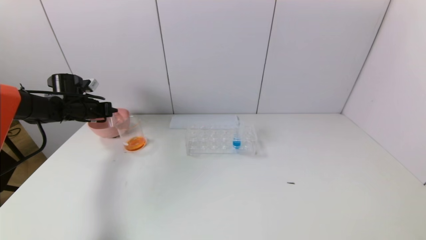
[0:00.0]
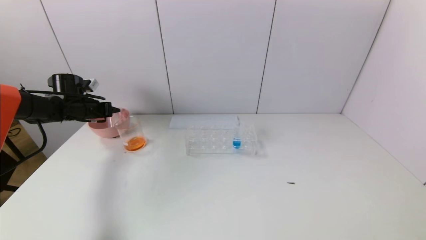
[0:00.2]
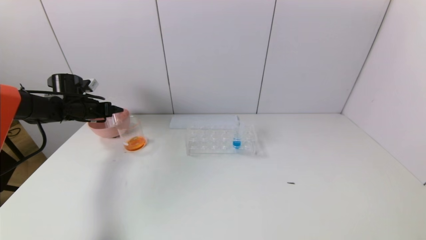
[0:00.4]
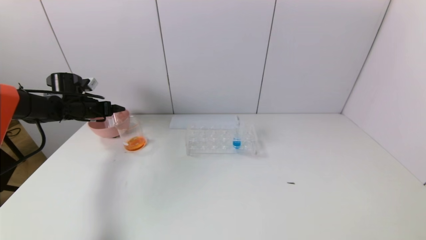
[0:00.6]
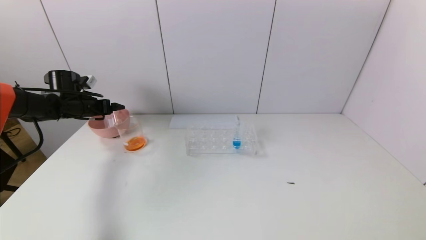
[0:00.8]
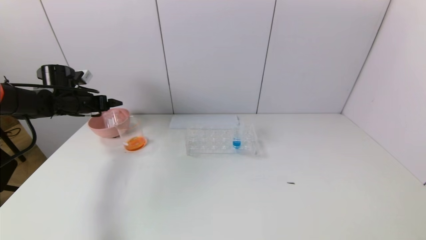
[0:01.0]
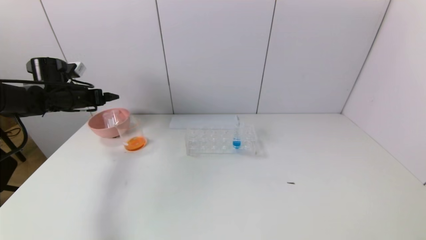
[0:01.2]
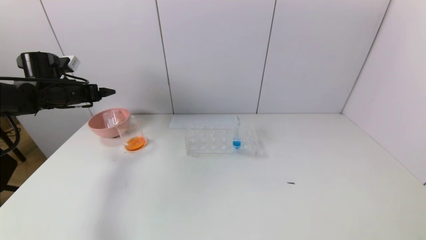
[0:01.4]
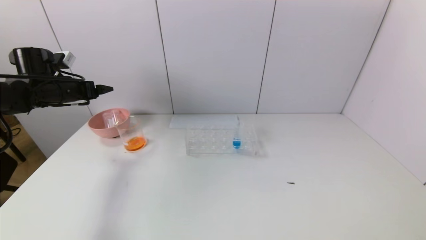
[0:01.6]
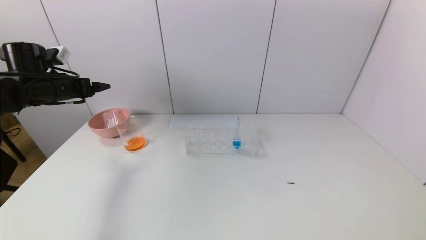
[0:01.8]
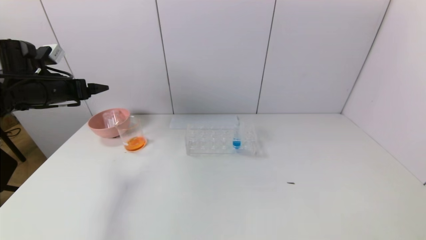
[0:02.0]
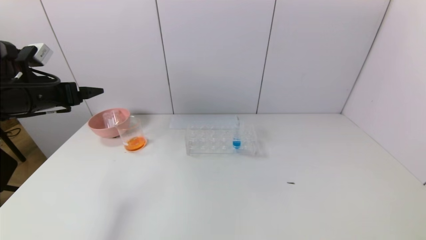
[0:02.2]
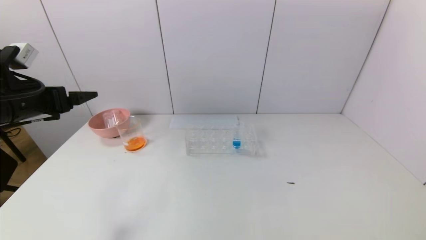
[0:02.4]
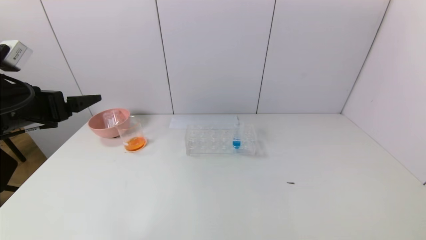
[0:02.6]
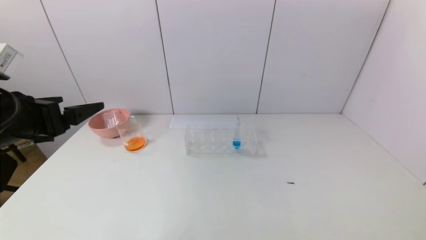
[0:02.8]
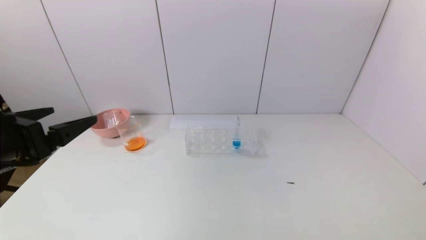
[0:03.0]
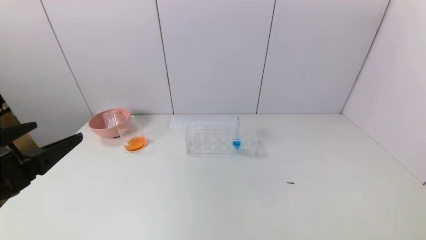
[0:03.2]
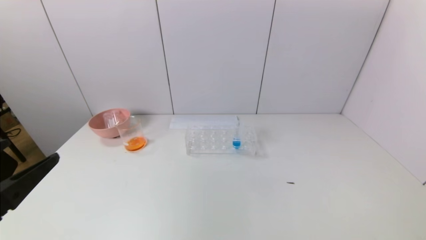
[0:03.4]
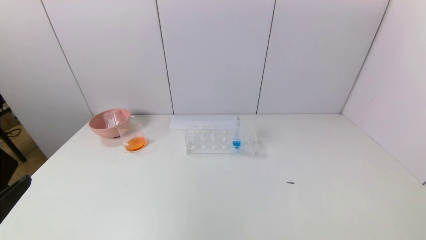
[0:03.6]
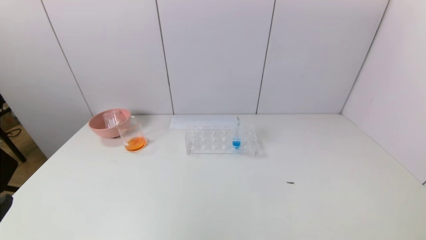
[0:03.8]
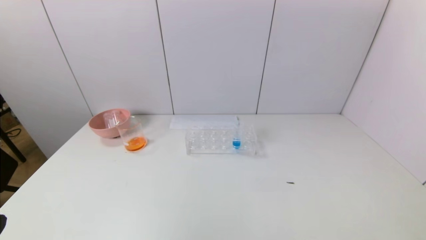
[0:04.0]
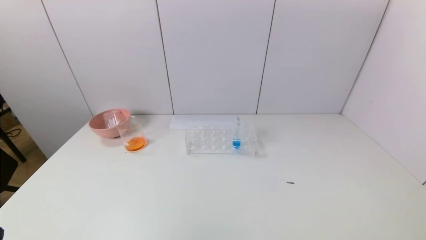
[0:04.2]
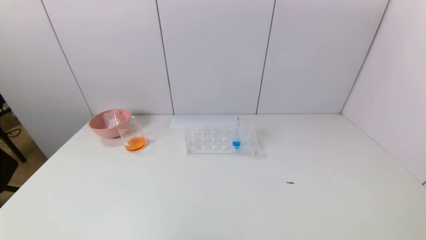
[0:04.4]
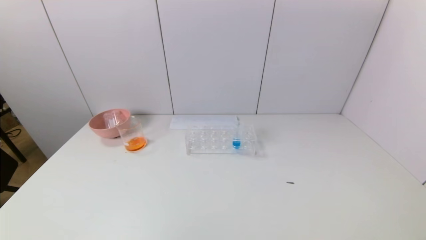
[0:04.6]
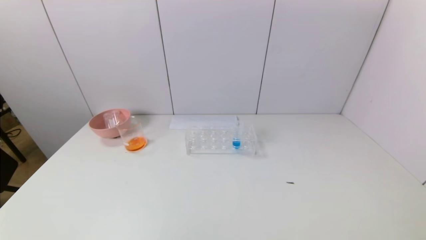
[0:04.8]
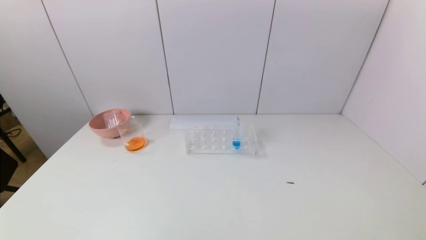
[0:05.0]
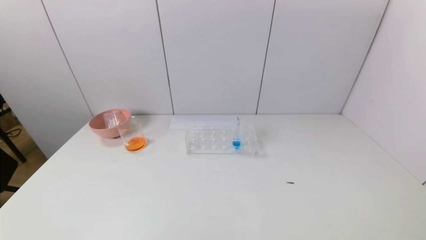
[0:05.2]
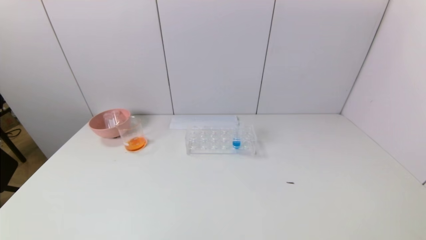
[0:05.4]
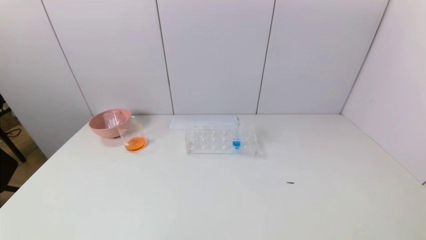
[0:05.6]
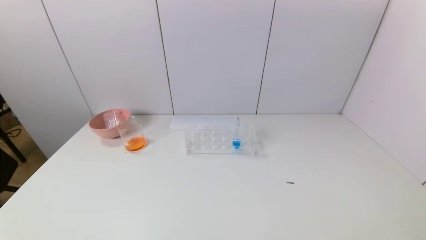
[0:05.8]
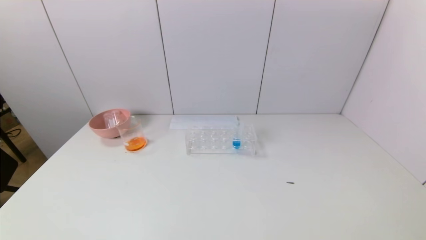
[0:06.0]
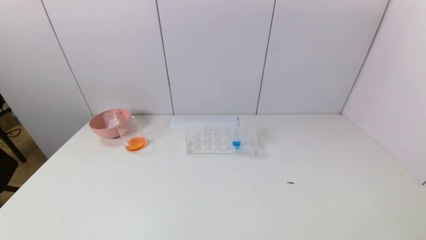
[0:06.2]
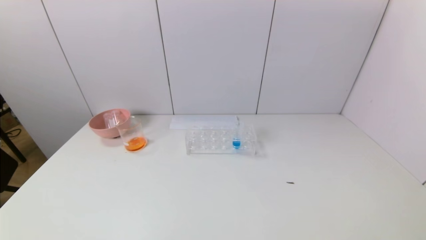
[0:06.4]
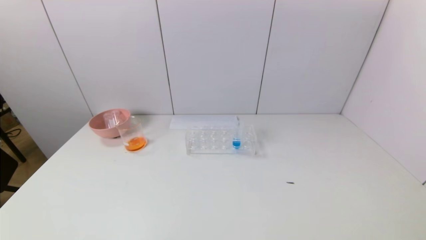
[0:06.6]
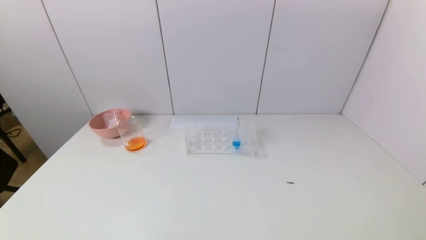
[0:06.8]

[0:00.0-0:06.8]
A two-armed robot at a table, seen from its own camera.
Task of the whole recording: pick up the test tube with yellow pigment and the test tube with red pigment by grippers and pour them into the beaker.
0:00.0 to 0:01.4: The left gripper heads upward, covering some 5 cm, and opens its fingers.
0:01.4 to 0:02.8: The left gripper travels backward and to the right by some 25 cm.
0:02.8 to 0:04.0: The left gripper moves backward and downward, approximately 20 cm.

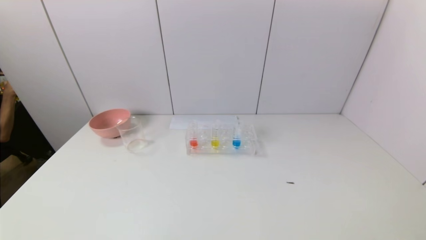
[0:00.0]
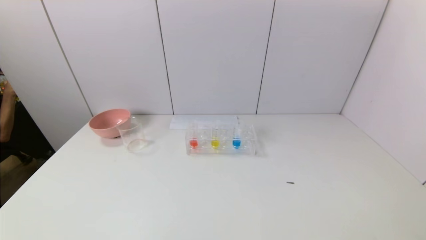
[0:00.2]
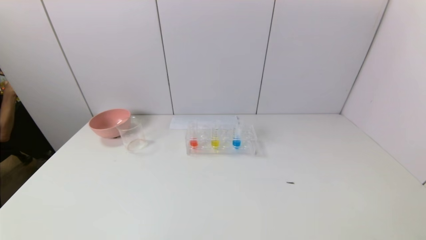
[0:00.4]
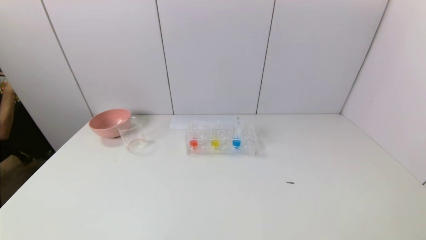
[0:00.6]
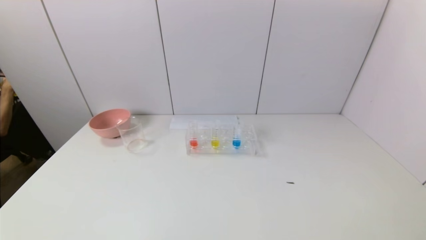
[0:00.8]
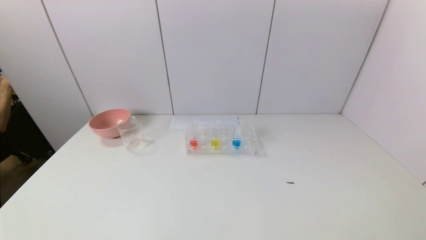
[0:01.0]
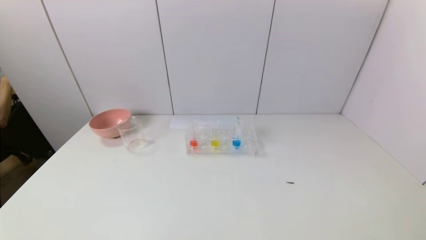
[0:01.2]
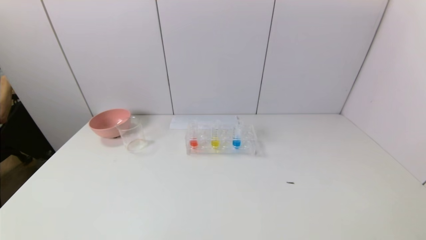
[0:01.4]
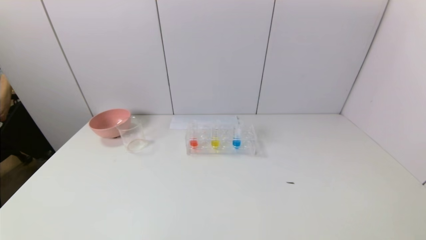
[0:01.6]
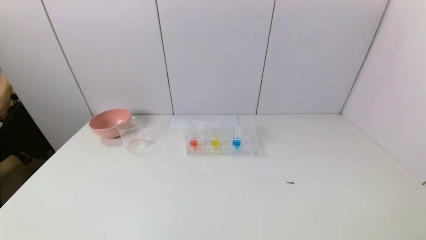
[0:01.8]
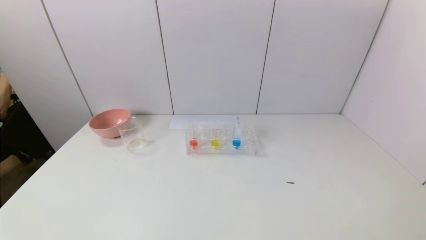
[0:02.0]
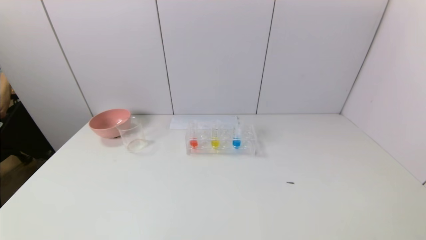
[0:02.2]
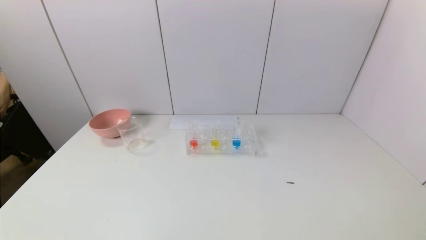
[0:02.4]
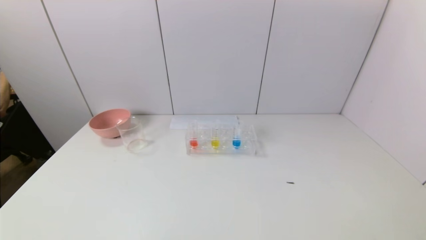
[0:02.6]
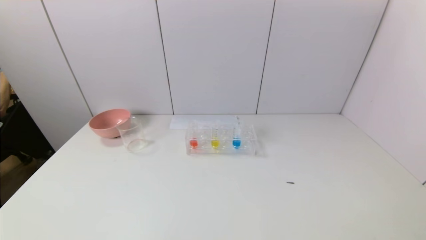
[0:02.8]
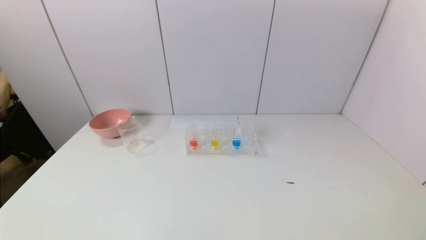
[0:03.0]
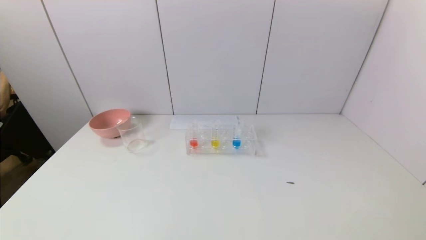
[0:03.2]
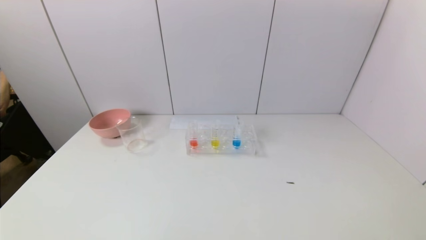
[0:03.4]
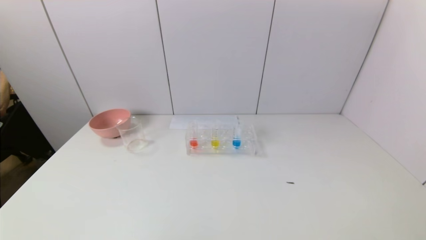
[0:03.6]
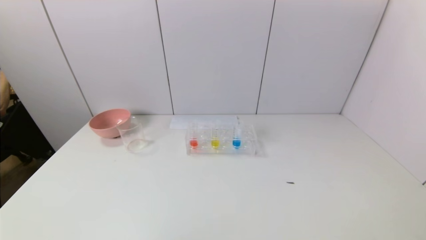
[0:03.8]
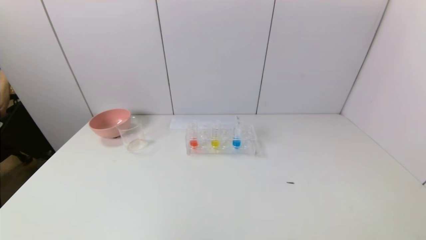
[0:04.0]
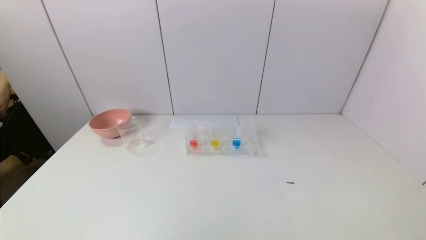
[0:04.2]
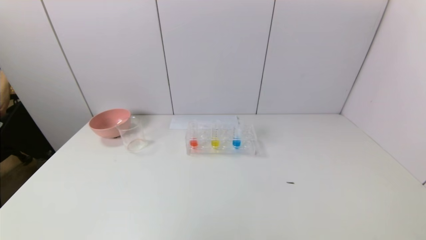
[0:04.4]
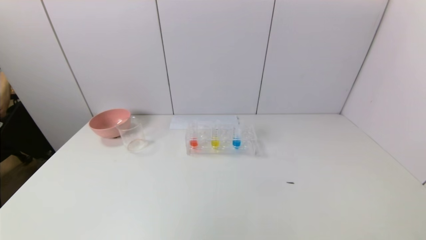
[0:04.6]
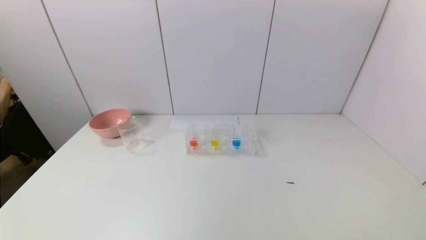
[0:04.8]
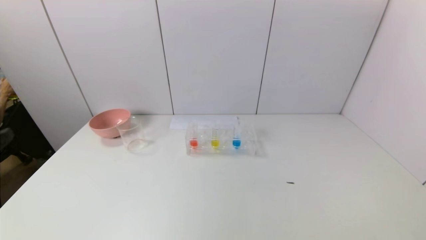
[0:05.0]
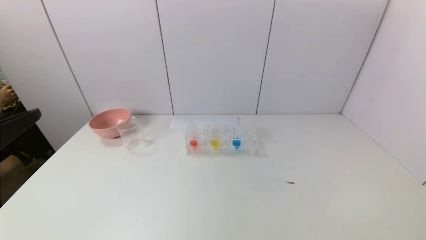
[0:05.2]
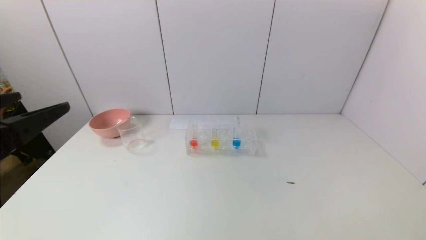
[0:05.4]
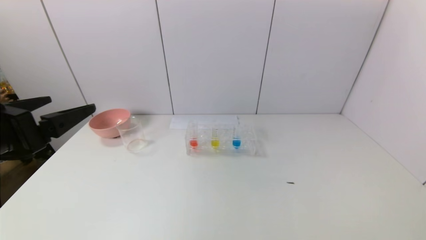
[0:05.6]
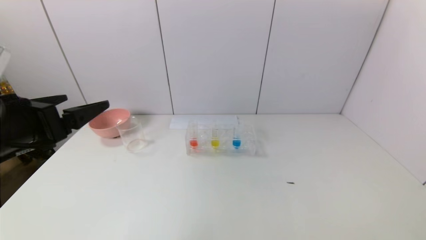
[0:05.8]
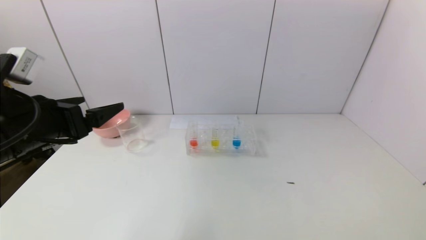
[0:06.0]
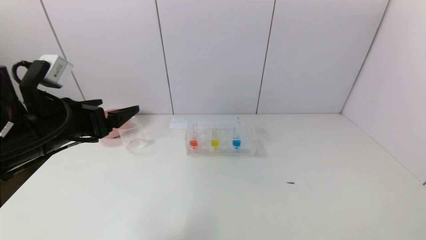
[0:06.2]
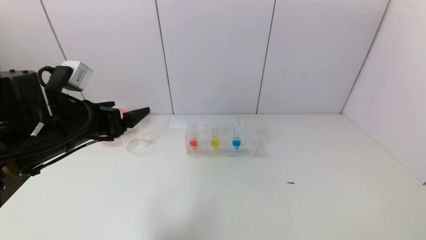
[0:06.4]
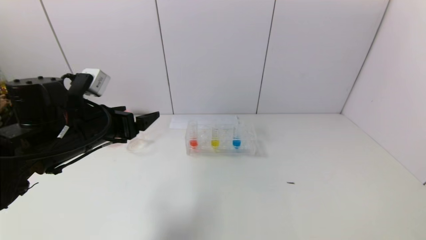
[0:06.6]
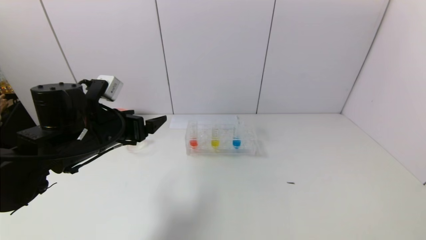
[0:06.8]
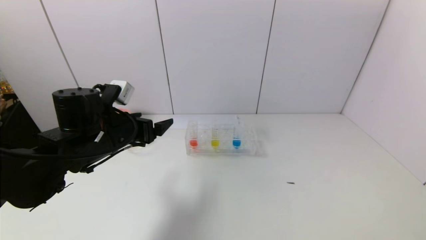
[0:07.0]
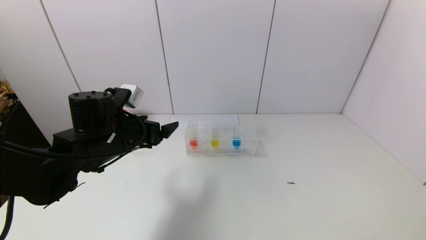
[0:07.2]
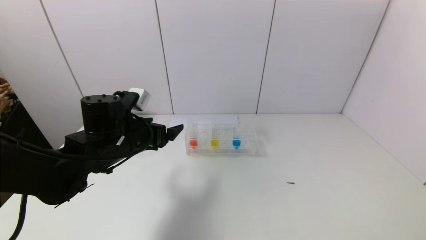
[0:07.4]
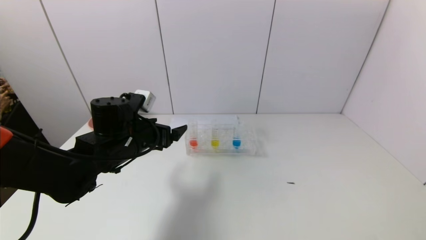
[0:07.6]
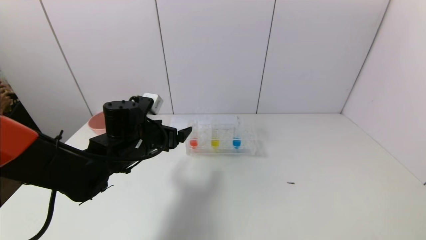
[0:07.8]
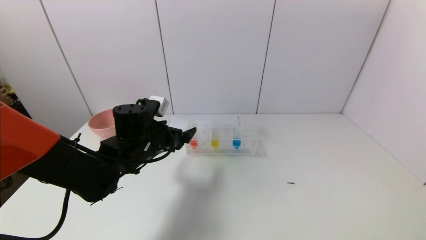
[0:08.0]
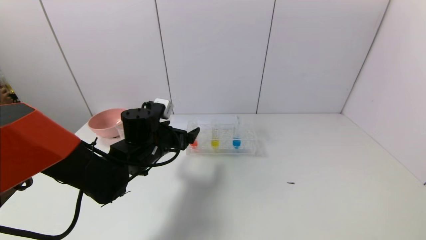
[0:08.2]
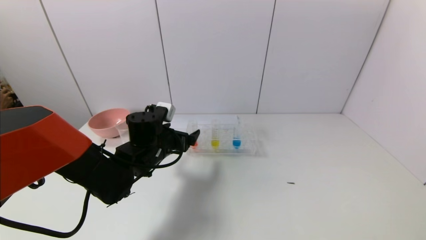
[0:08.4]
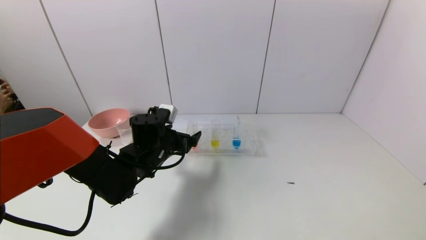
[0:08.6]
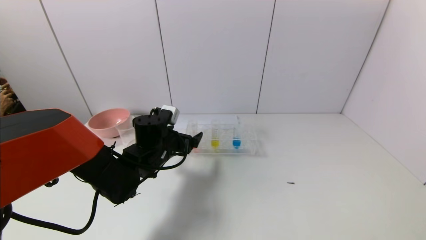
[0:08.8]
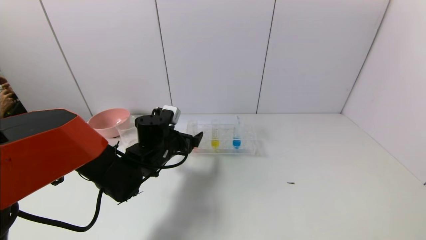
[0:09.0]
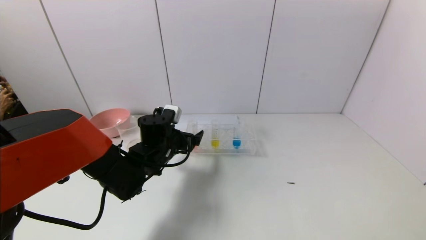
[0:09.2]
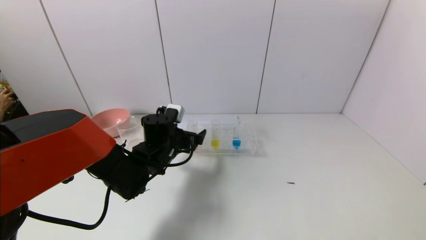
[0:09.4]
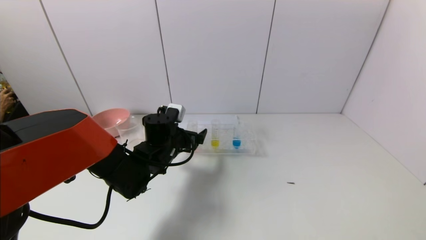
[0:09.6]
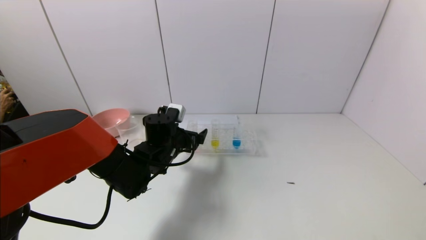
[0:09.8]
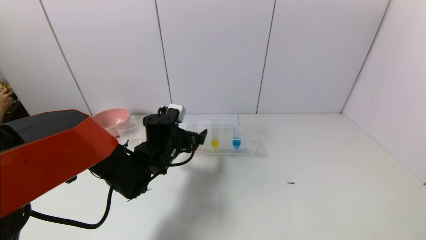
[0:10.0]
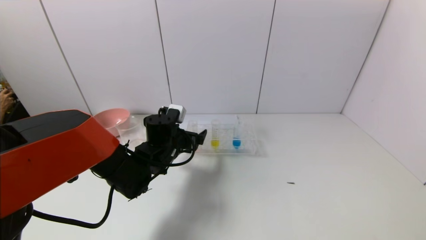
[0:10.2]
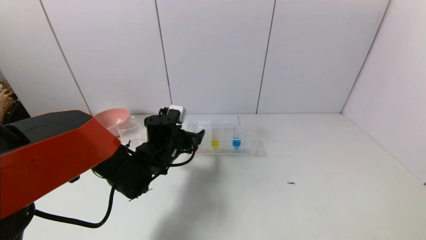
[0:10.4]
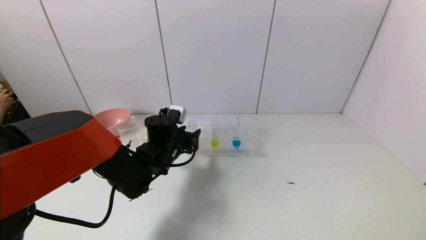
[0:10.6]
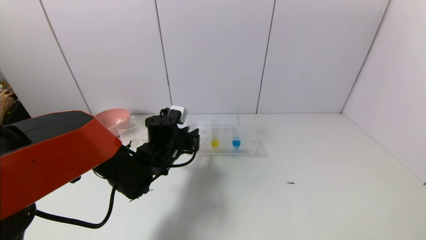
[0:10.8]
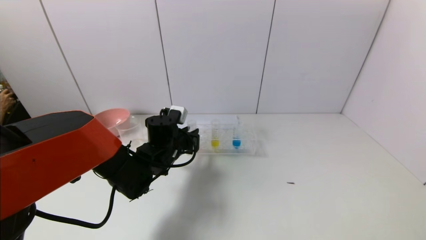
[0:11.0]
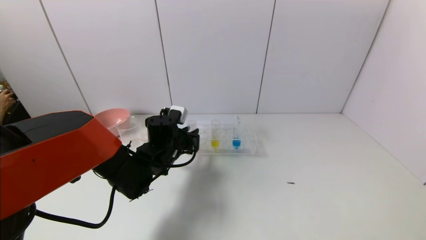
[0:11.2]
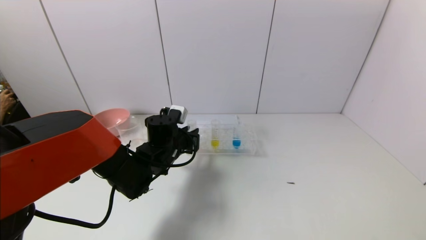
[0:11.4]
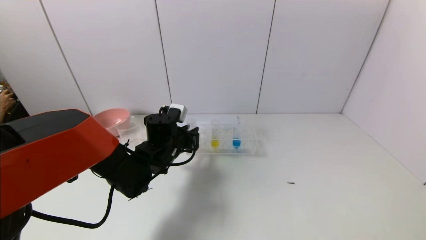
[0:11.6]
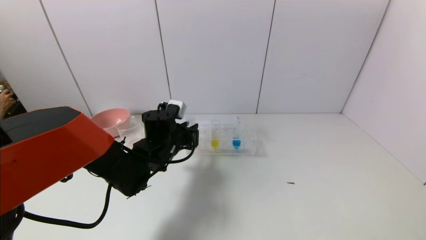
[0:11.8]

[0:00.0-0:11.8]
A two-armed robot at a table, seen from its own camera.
Task of the whole recording: pick up the test tube with yellow pigment and the test tube with red pigment by grippers and pour them into the beaker.
Step, 0:00.0 to 0:11.4: Grasp the red reagent with the left gripper.
0:00.0 to 0:03.0: Both grippers stay about where they are.
0:04.4 to 0:06.0: The left gripper travels forward by about 20 cm.
0:06.0 to 0:07.4: The left gripper travels forward, downward and to the right by roughly 15 cm.
0:07.4 to 0:08.8: The left gripper is displaced downward and to the right by about 10 cm.
0:08.8 to 0:10.4: The grippers stay close to where they were, moving slightly.
0:10.4 to 0:11.8: The left gripper closes its fingers.
